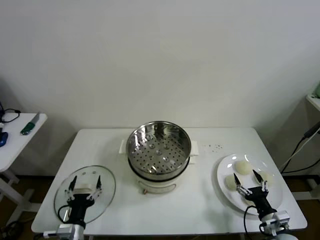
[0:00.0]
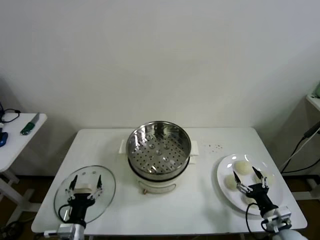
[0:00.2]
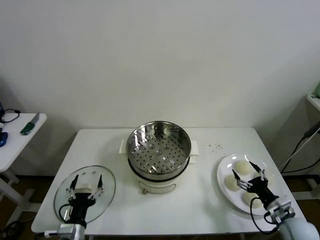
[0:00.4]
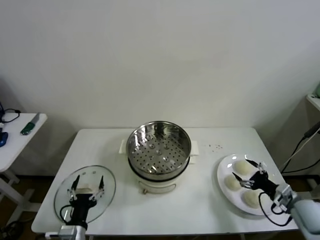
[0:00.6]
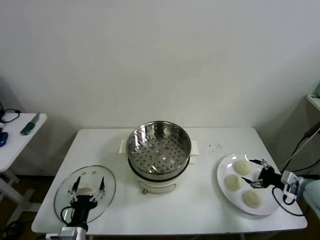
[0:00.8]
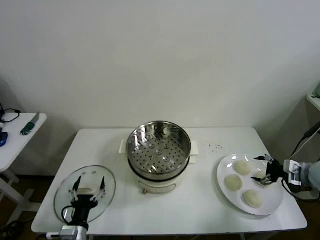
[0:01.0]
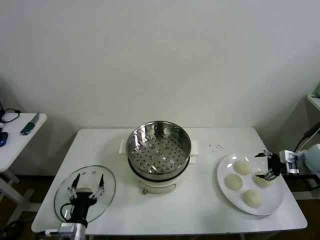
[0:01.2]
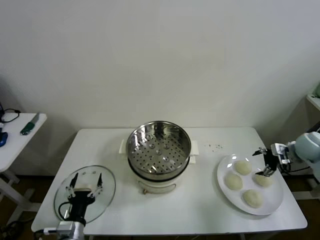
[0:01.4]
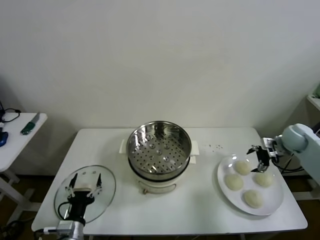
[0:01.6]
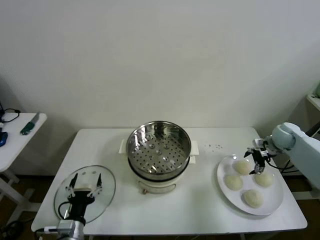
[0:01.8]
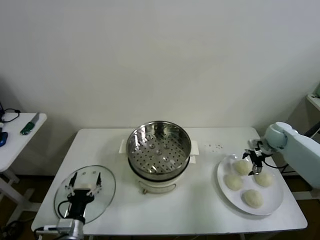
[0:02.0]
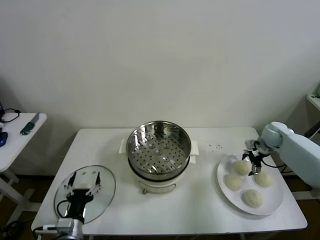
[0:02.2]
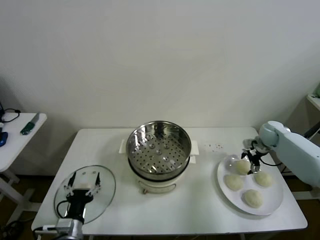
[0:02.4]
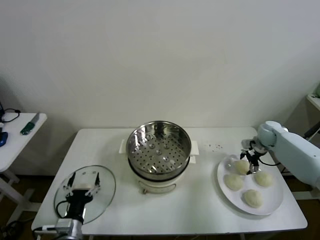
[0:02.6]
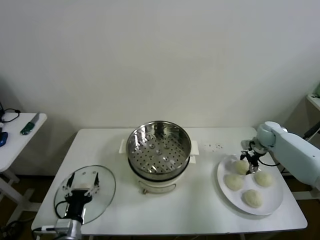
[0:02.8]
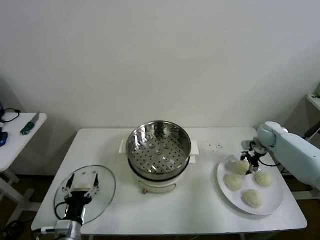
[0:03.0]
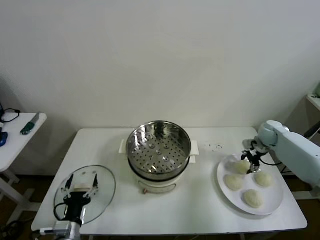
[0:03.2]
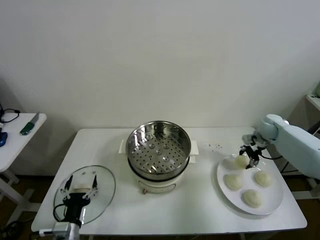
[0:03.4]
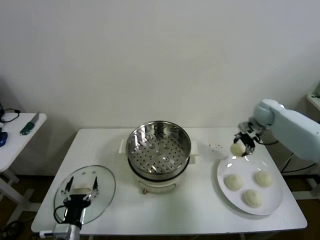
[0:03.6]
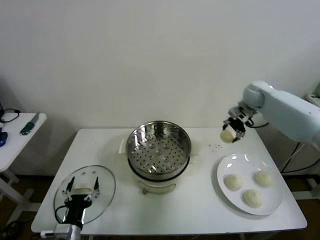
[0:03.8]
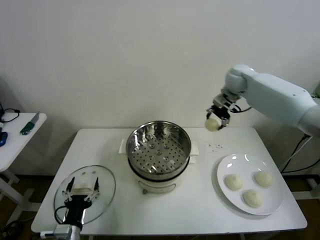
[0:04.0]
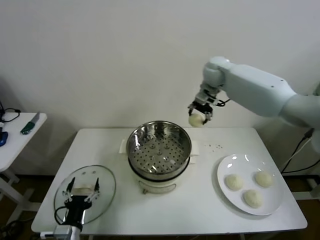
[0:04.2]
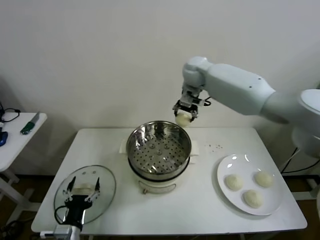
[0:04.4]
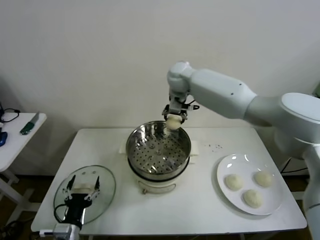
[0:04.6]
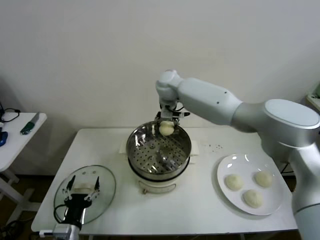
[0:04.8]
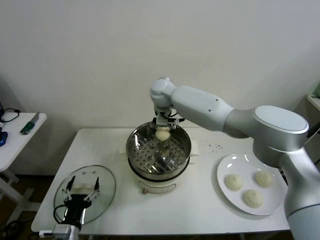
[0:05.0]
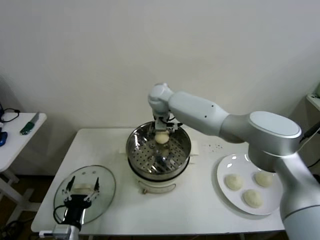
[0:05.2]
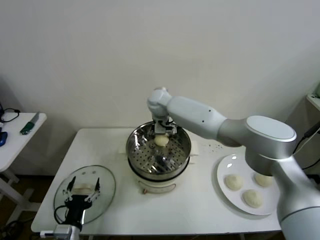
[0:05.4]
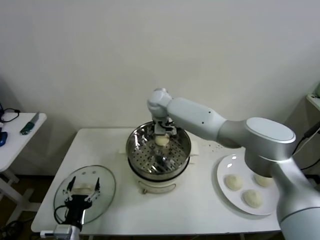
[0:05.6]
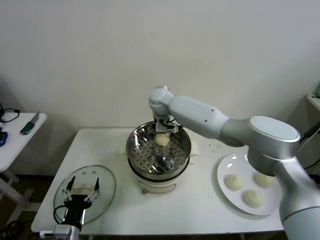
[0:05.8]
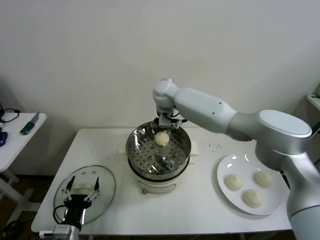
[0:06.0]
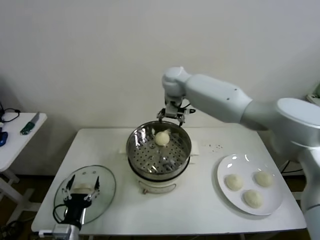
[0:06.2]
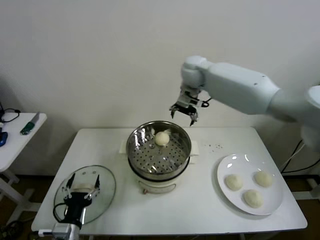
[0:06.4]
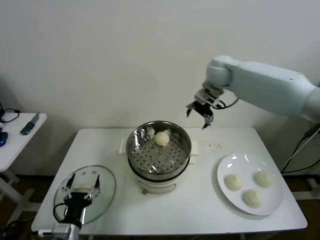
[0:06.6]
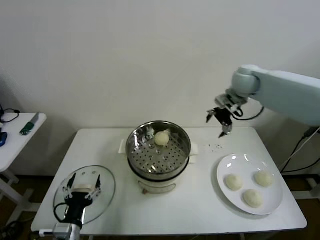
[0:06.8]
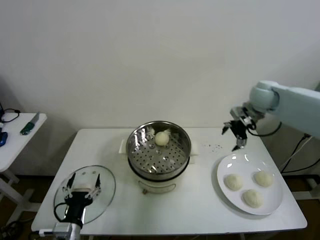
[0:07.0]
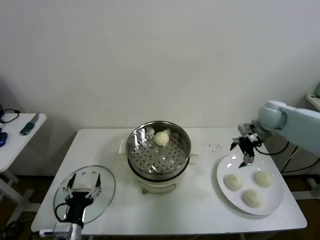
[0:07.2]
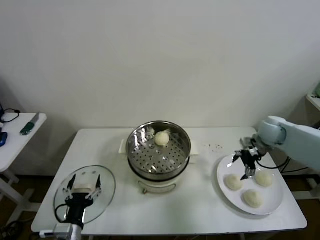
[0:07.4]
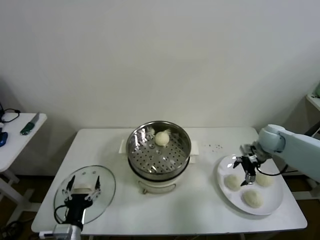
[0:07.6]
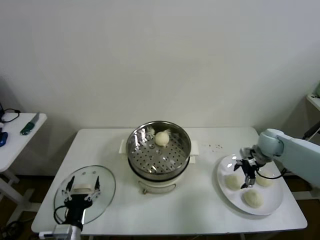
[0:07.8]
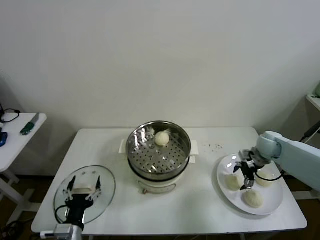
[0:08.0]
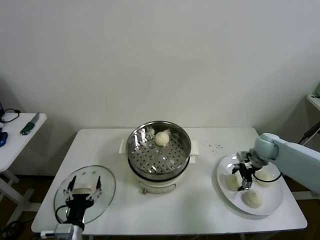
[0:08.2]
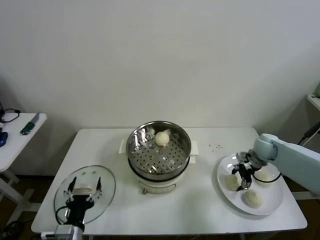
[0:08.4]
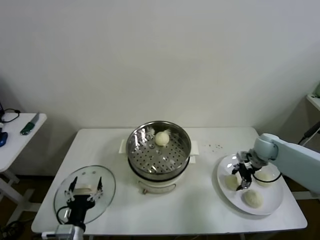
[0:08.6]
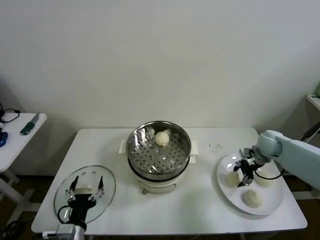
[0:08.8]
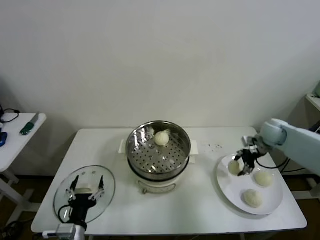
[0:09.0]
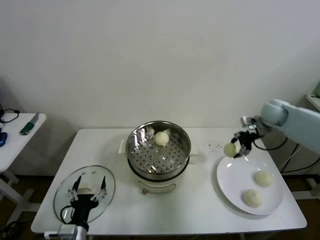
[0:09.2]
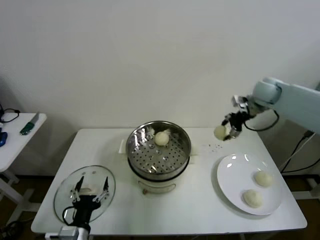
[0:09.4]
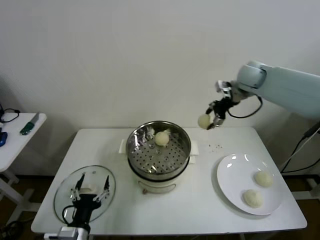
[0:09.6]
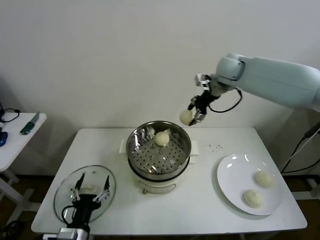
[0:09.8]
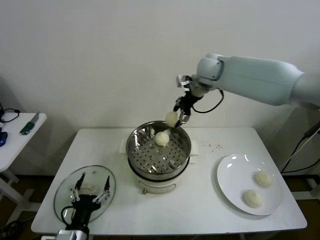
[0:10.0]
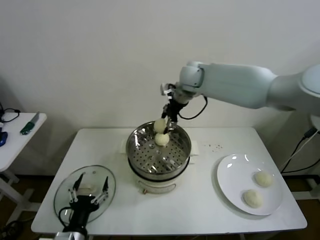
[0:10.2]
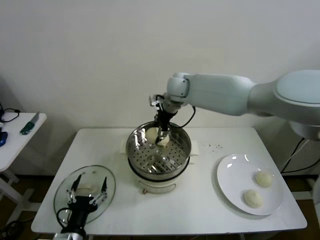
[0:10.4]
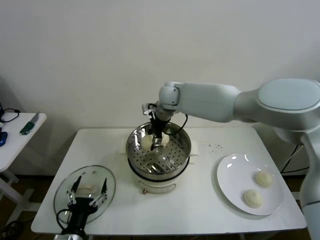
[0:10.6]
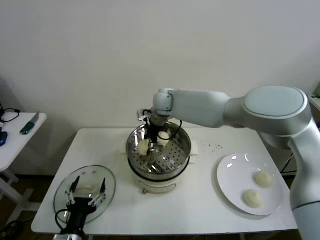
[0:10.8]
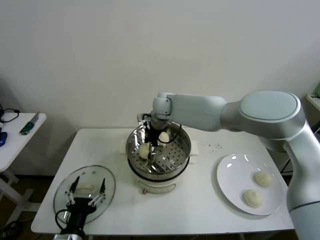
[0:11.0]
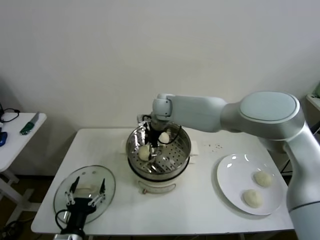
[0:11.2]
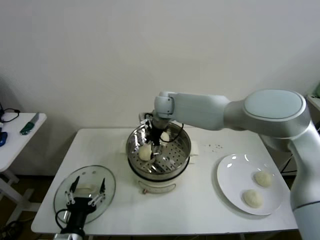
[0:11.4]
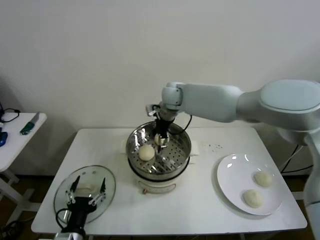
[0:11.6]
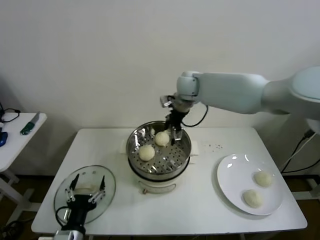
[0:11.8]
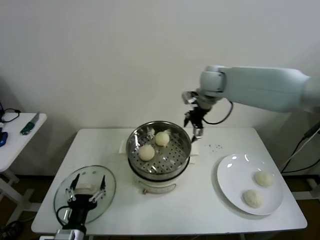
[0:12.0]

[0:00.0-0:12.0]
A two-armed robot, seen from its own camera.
Step, 0:00.0 to 0:03.0: Grasp the baozi in the plate with right gripper.
Step, 0:03.2 to 0:05.6: Place the baozi on the steamer with right gripper.
Step, 0:05.8 to 0:08.4: Grasp the baozi in the plate with right gripper.
Step, 0:08.6 to 0:11.0: Place the baozi on the steamer with right gripper.
0:01.6 to 0:03.0: The right gripper goes approximately 5 cm forward, and closes up.
0:03.0 to 0:04.4: The right gripper travels to the left and upward by about 40 cm.
0:04.4 to 0:06.0: The right gripper is displaced to the left and downward by roughly 10 cm, and opens up.
0:06.0 to 0:07.6: The right gripper shifts some 40 cm to the right.
0:07.6 to 0:09.0: The right gripper closes its fingers.
0:09.0 to 0:10.4: The right gripper shifts some 40 cm to the left and upward.
0:10.4 to 0:12.0: The right gripper travels to the right by about 10 cm, and opens up.

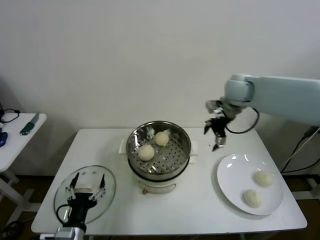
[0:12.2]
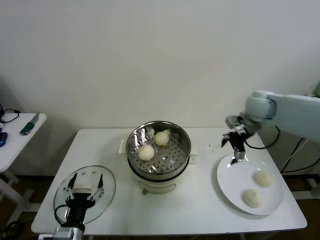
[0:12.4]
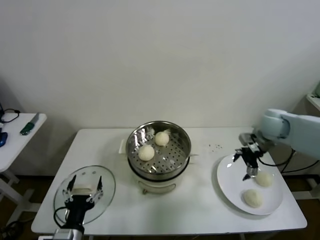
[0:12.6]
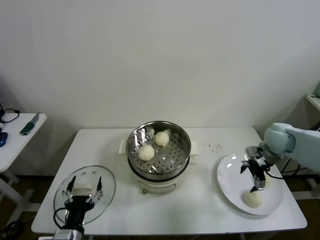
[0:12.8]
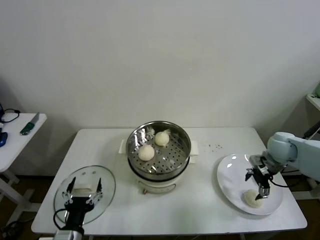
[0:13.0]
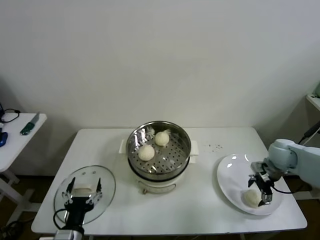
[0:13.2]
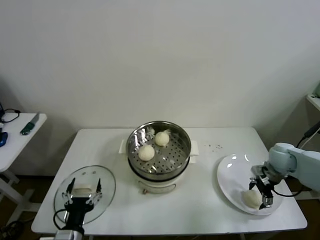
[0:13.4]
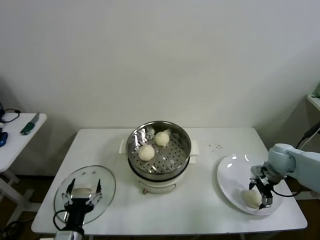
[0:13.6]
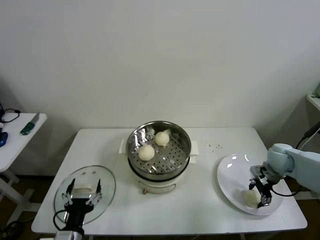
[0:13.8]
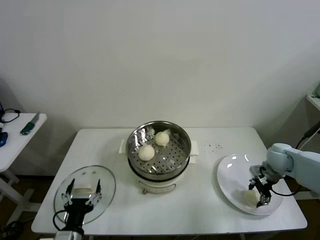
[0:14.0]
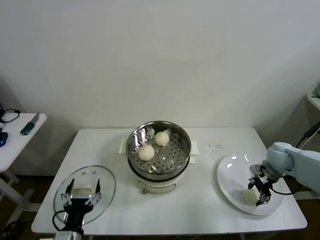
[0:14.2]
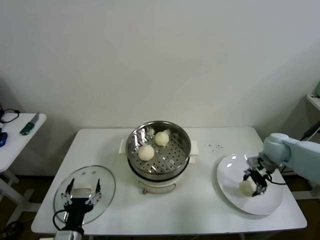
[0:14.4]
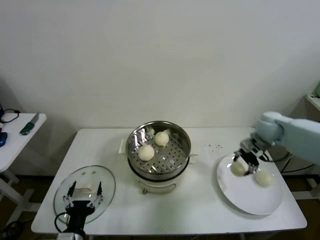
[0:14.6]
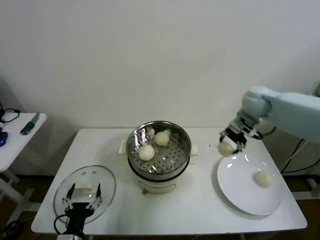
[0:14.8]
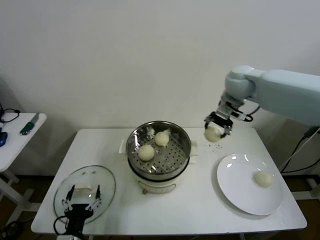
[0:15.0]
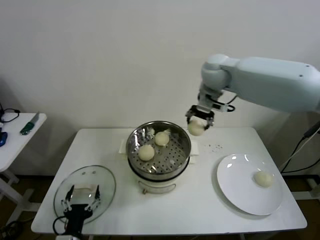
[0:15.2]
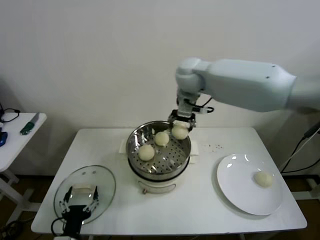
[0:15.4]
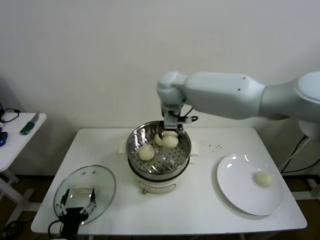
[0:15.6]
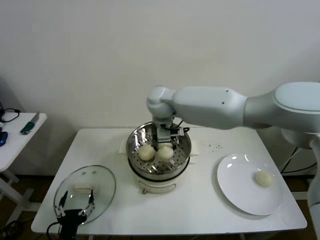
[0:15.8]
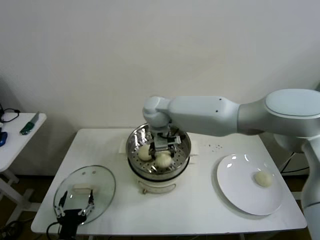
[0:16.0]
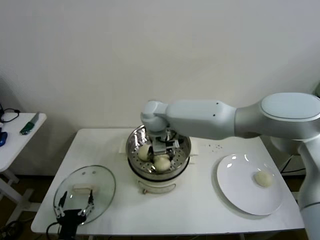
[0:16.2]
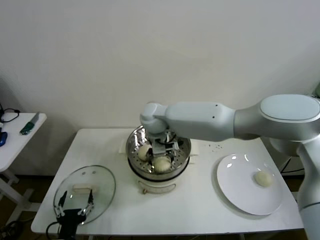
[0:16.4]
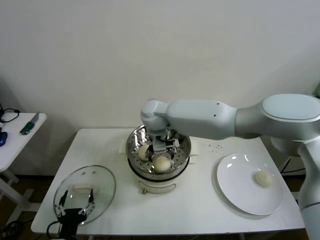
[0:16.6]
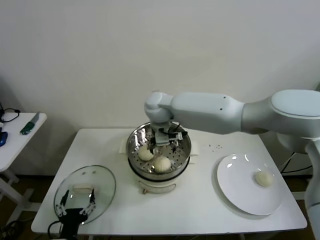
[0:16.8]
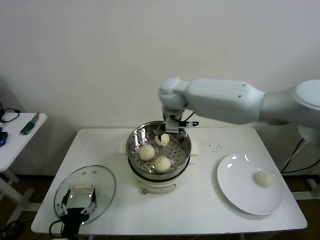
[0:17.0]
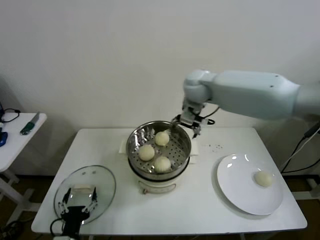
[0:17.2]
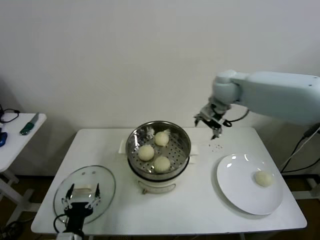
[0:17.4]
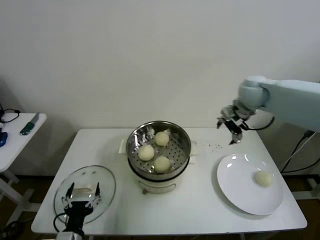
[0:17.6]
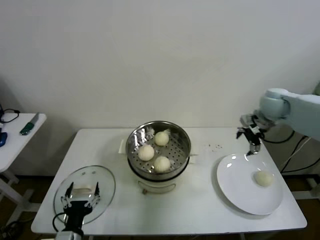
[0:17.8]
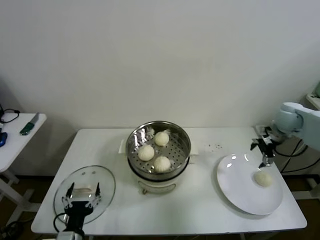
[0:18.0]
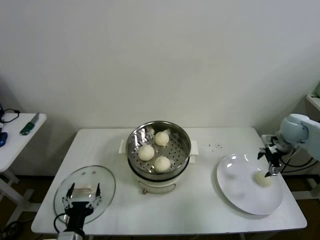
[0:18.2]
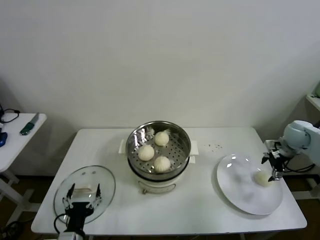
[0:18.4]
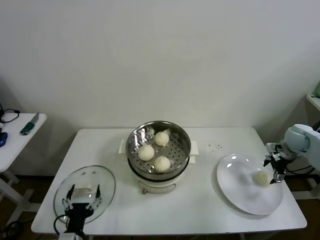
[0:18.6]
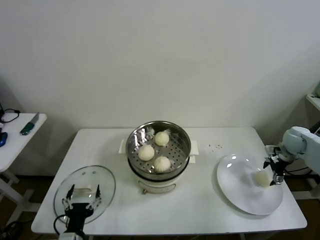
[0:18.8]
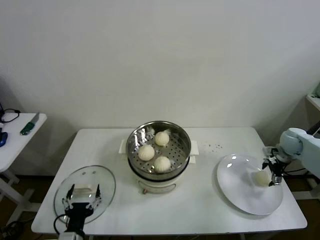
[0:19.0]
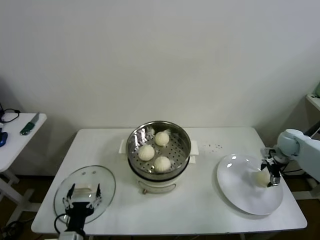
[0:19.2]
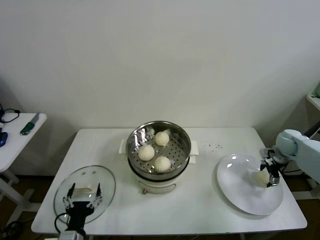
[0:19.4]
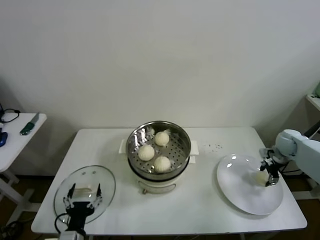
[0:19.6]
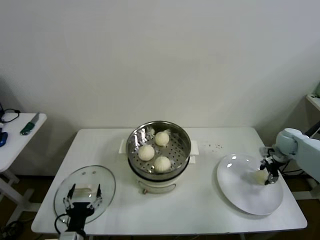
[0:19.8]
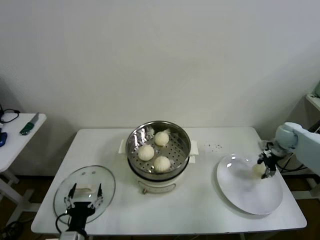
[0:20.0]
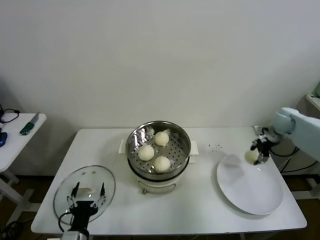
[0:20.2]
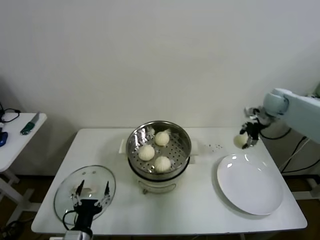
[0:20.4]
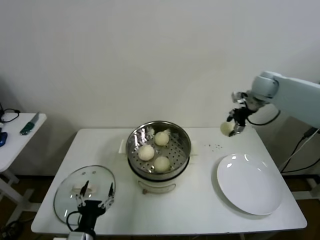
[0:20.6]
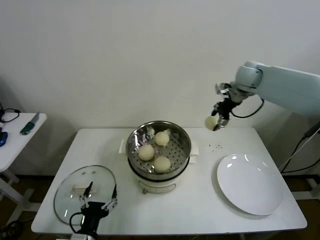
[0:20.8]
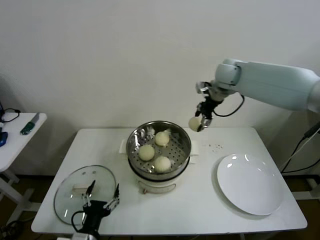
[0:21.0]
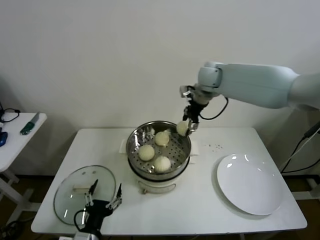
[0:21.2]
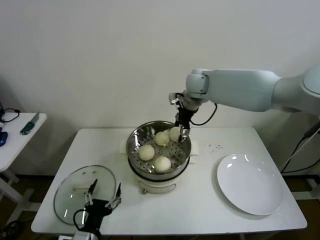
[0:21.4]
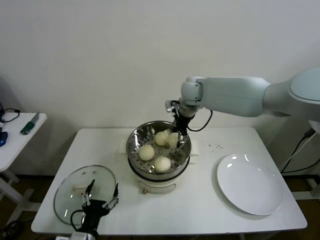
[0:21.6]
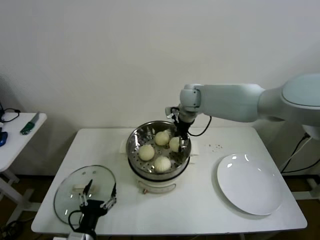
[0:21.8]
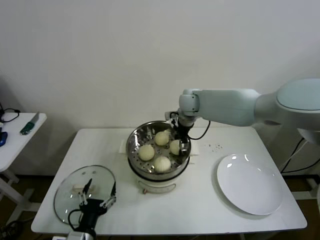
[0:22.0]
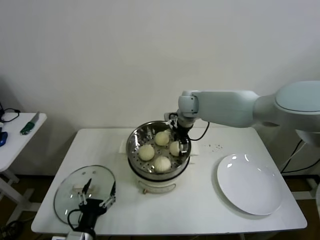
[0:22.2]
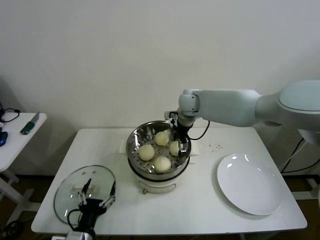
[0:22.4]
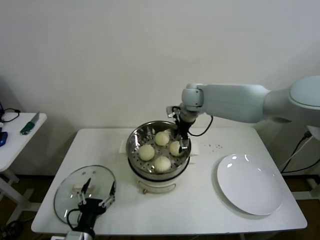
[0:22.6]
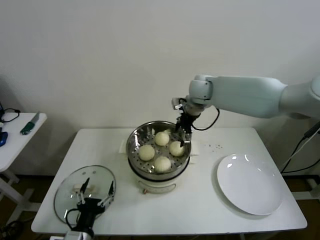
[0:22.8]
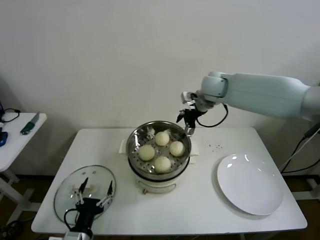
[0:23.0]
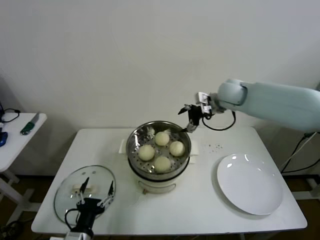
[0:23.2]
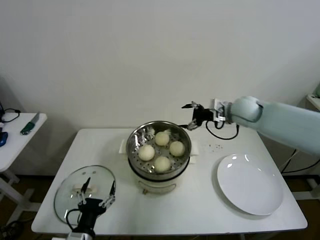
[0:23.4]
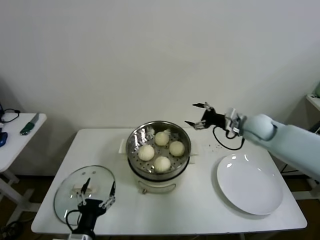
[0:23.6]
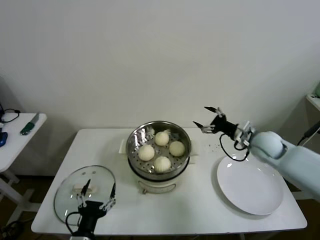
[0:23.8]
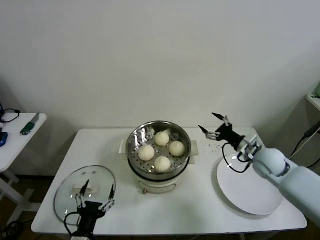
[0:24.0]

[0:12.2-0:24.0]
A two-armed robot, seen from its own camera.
Step, 0:12.2 to 0:14.0: Grasp the baozi in the plate with right gripper.
Step, 0:14.2 to 0:16.4: Place the baozi on the steamer with right gripper.
Step, 0:16.6 to 0:19.6: Grasp the baozi in the plate with right gripper.
Step, 0:19.8 to 0:22.0: Place the baozi on the steamer with right gripper.
0:12.2 to 0:13.6: The right gripper heads downward, to the right and backward, covering approximately 30 cm.
0:13.6 to 0:15.2: The right gripper travels upward, to the left and forward by some 40 cm, and closes up.
0:15.2 to 0:16.6: The right gripper moves to the left and downward, approximately 20 cm, and opens up.
0:16.6 to 0:18.2: The right gripper heads to the right, covering roughly 50 cm.
0:18.2 to 0:19.6: The right gripper goes some 10 cm downward, and closes its fingers.
0:19.6 to 0:21.0: The right gripper is displaced to the left and upward by roughly 35 cm.
0:21.0 to 0:22.6: The right gripper heads to the left and downward, covering roughly 15 cm, and opens its fingers.
0:22.6 to 0:24.0: The right gripper is displaced to the right, backward and downward by roughly 35 cm.
